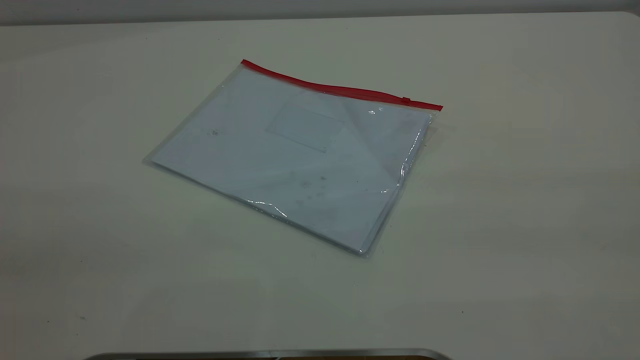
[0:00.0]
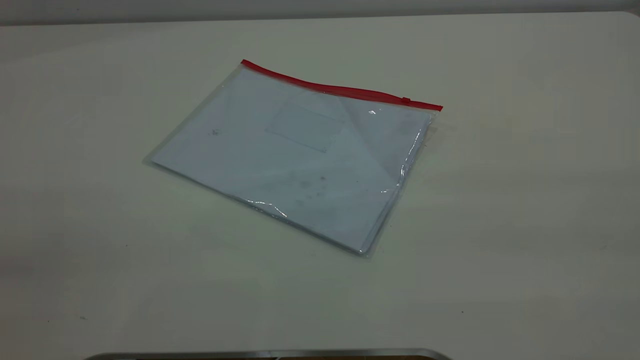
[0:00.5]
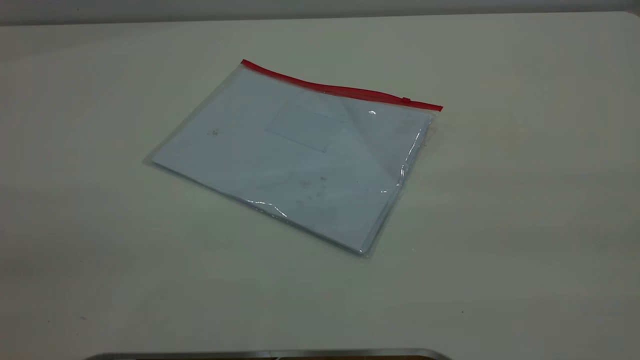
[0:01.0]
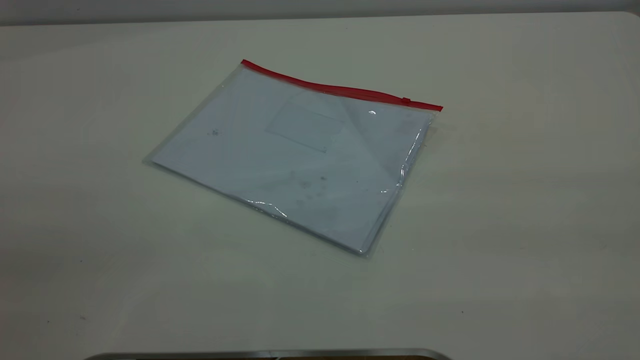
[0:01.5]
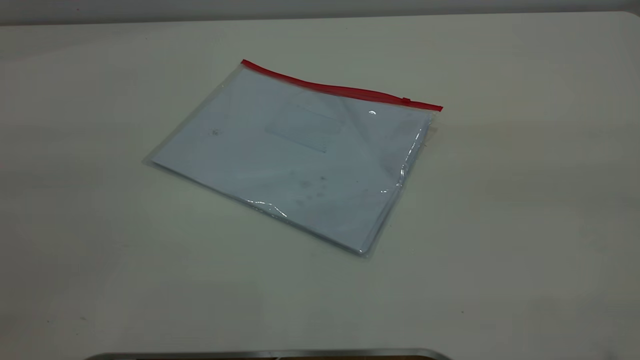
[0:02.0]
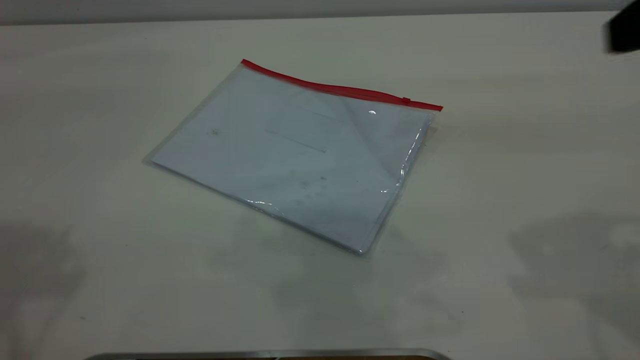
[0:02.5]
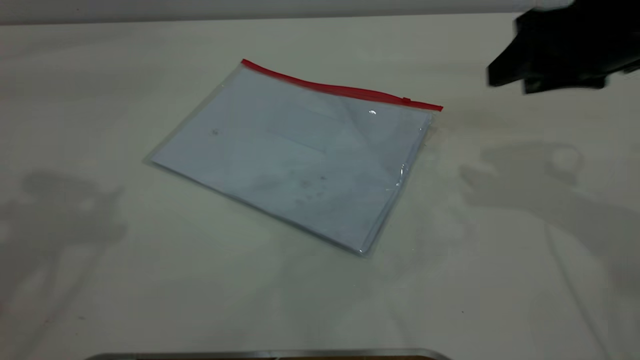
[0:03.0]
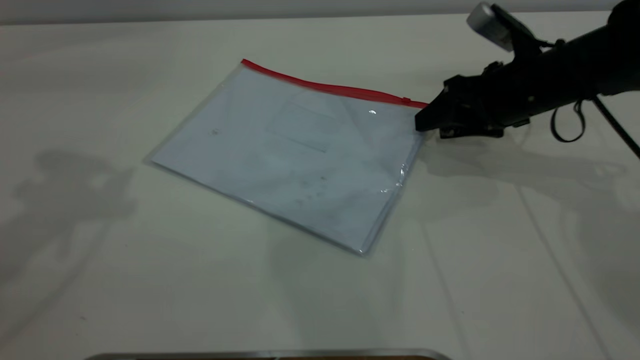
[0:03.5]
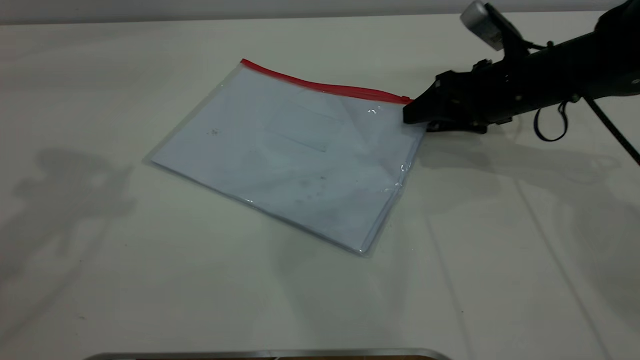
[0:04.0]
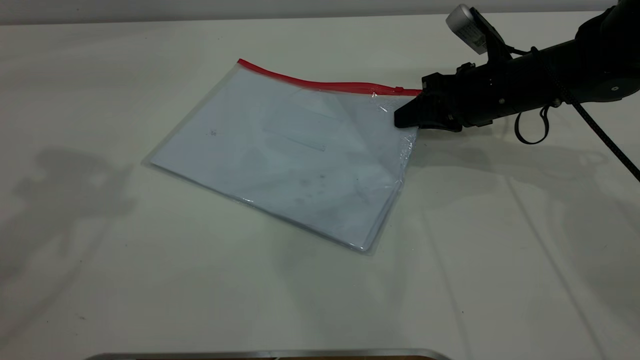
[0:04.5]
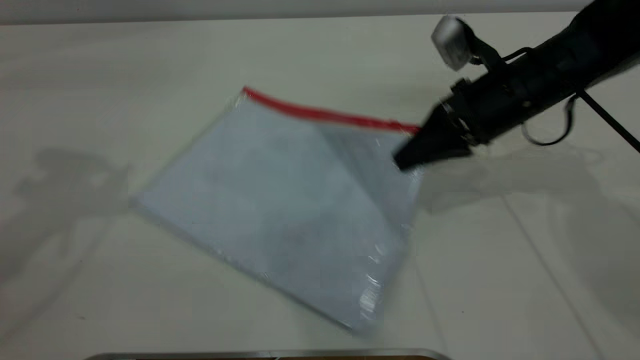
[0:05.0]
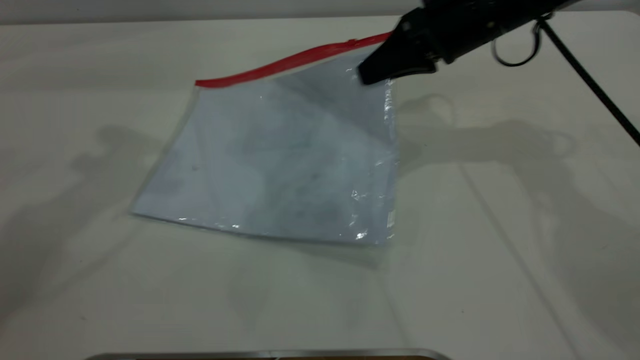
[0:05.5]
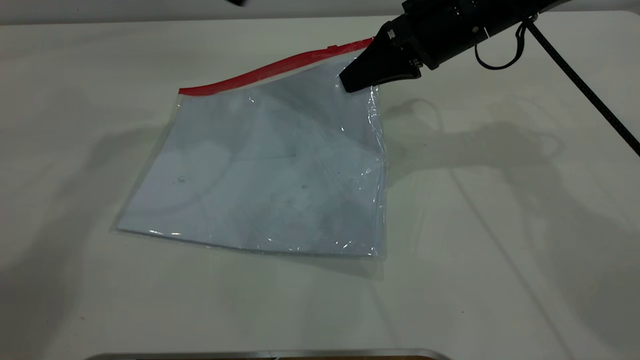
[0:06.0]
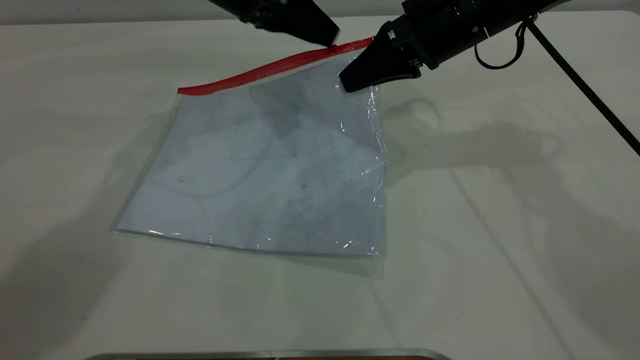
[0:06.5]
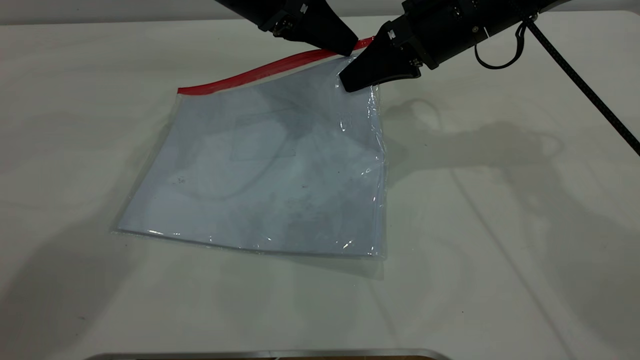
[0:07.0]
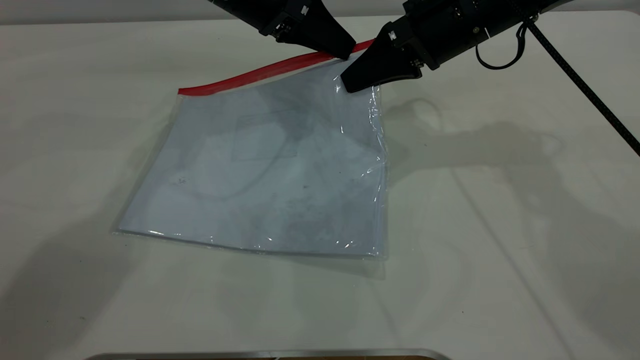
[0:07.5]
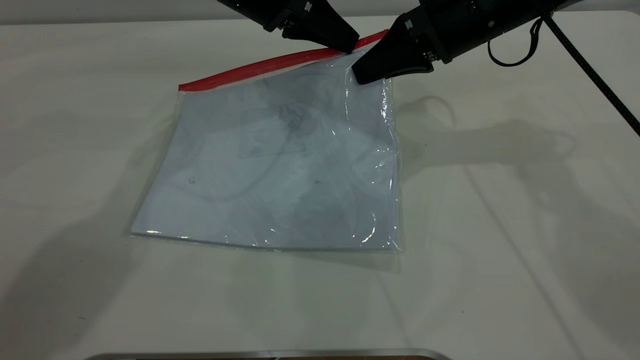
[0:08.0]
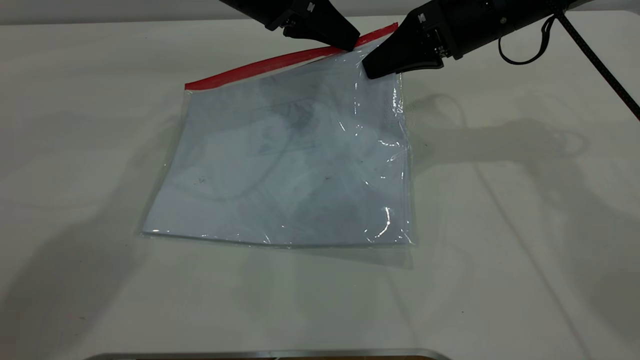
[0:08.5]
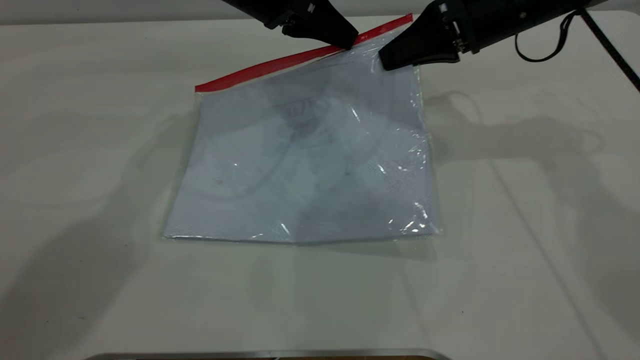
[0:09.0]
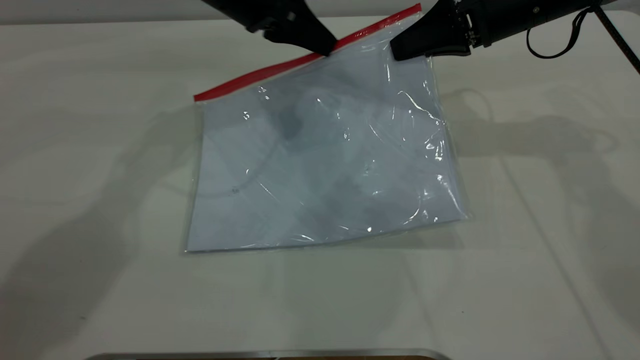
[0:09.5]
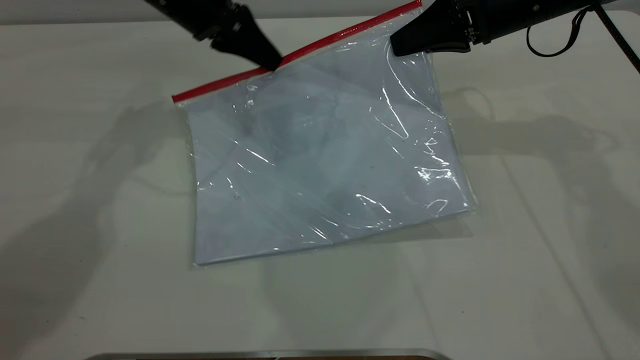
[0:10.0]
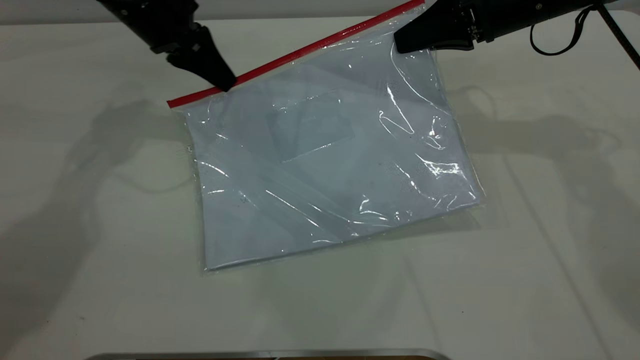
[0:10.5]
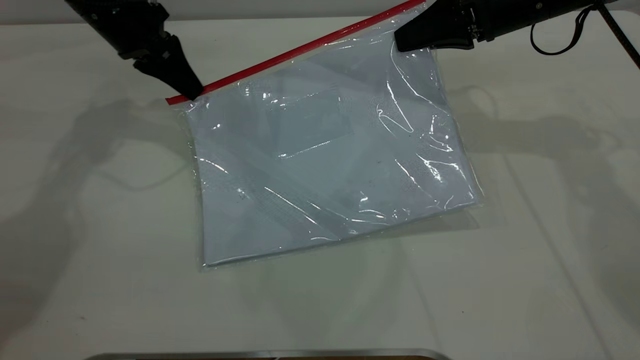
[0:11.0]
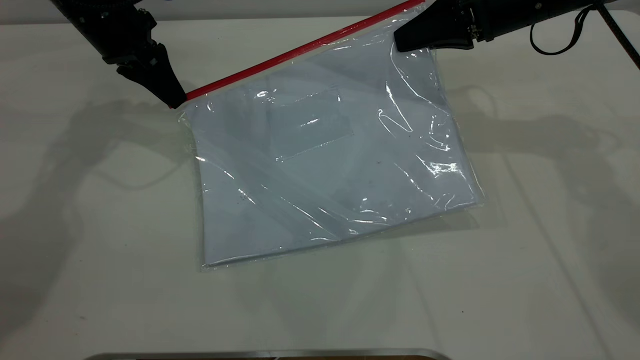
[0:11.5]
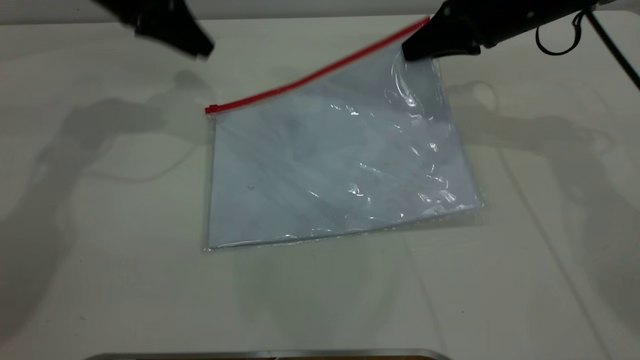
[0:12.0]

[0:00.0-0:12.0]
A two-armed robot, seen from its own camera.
Step, 0:00.0 to 0:05.5: Pick up the transparent plastic bag with the right gripper.
Step, 0:06.0 to 0:11.5: Pulling up the zipper on the transparent plastic bag with the left gripper to close it.
0:02.0 to 0:04.0: The right gripper shifts about 50 cm forward and downward.
0:04.0 to 0:06.0: The left gripper is displaced forward, to the right and downward by roughly 20 cm. The right gripper shifts about 10 cm upward and to the left, and closes.
0:06.0 to 0:08.0: The left gripper shifts roughly 10 cm to the right and downward, and closes its fingers.
0:08.0 to 0:10.0: The left gripper travels to the left by roughly 5 cm.
0:10.0 to 0:12.0: The left gripper heads to the left, covering about 5 cm, and opens its fingers.

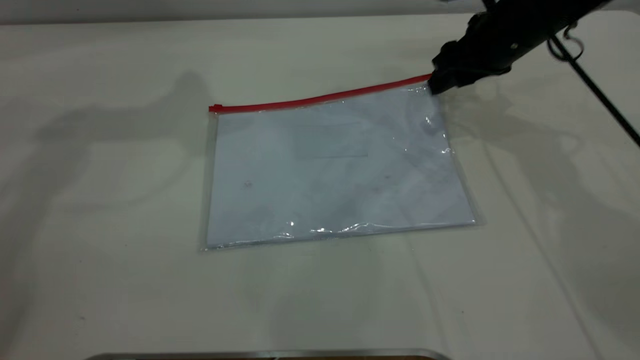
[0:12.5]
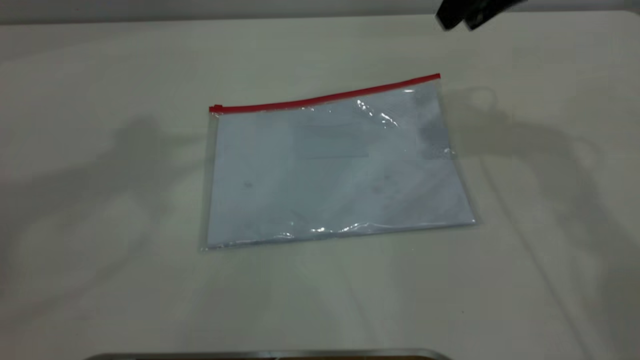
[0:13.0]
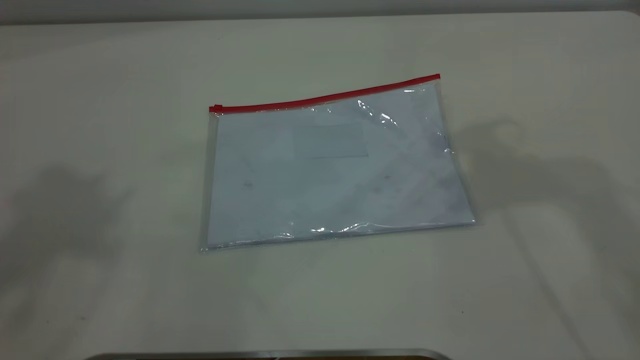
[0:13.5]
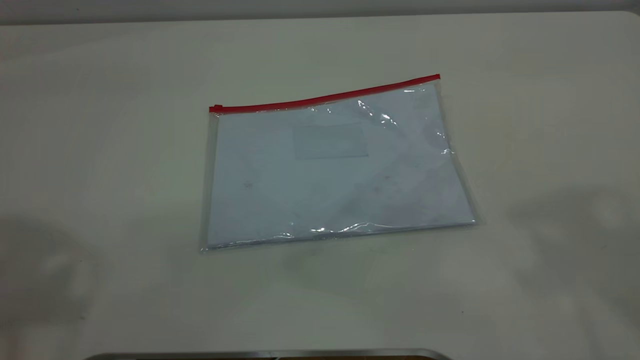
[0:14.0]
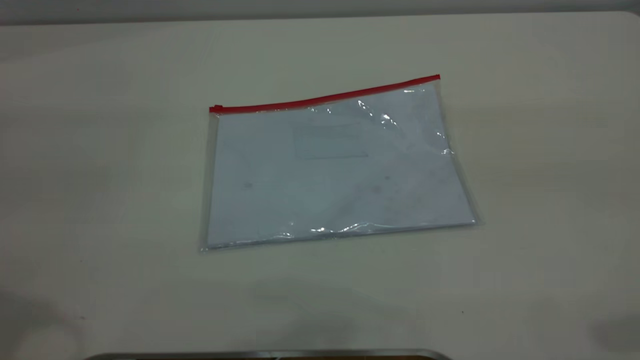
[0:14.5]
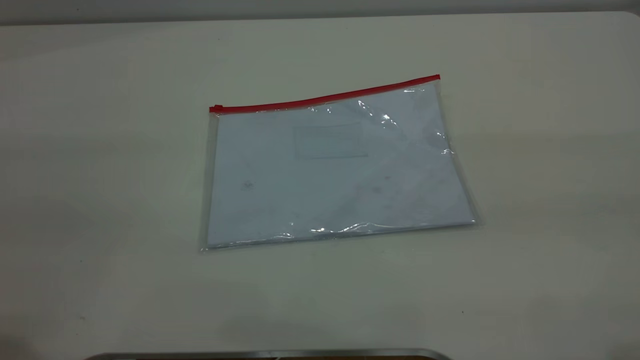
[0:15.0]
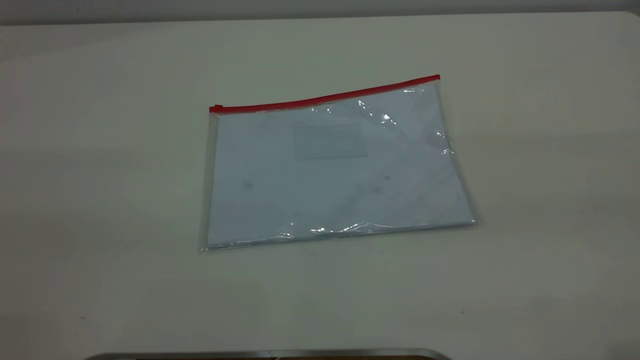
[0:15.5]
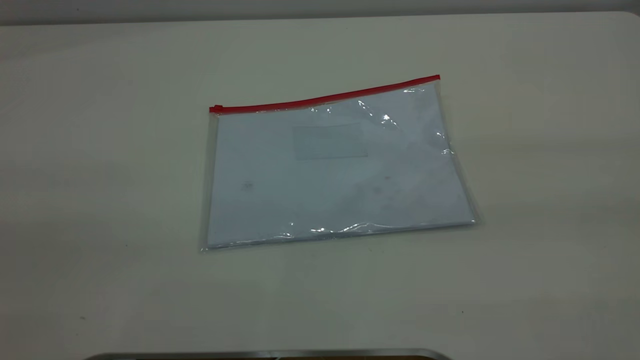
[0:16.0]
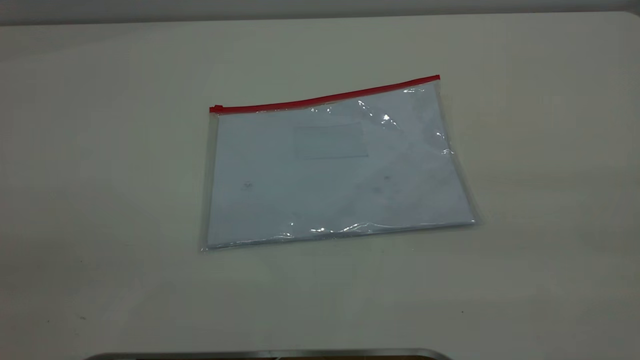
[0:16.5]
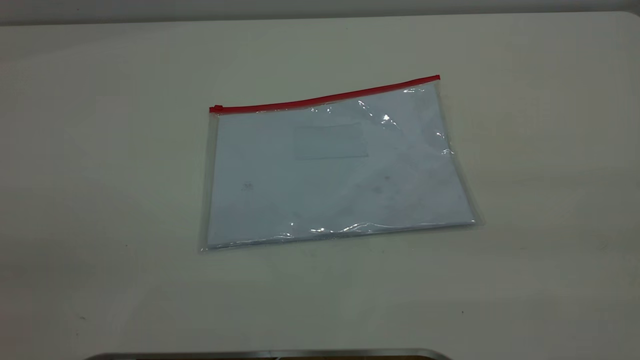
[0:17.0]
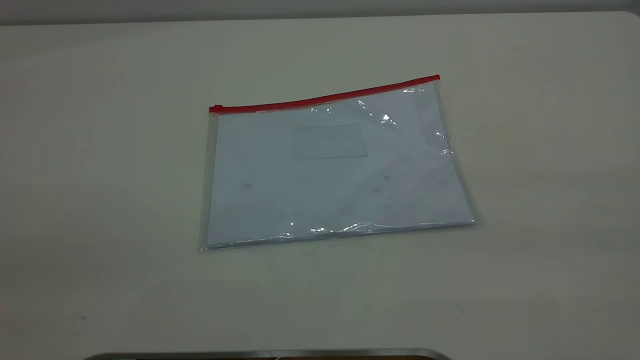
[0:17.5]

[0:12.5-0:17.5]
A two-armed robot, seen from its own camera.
Step, 0:12.5 to 0:13.0: Place the transparent plastic bag.
0:12.5 to 0:15.0: The right gripper shifts some 40 cm backward and upward.

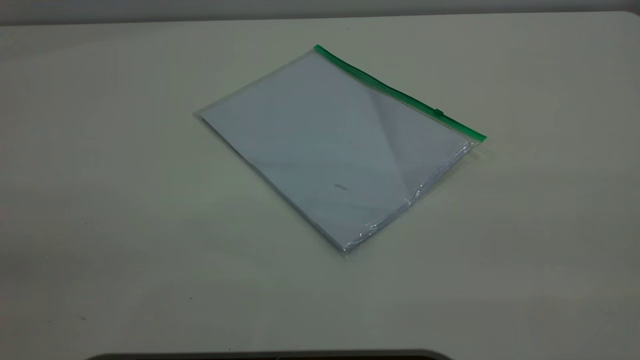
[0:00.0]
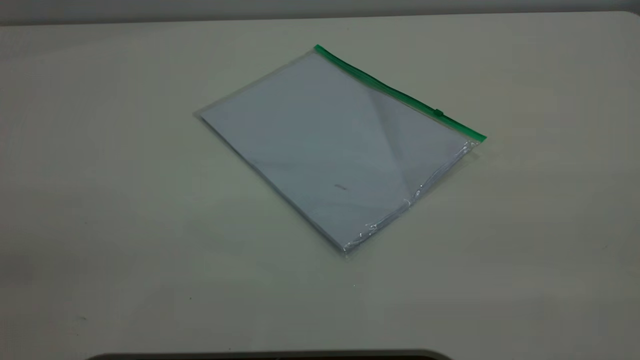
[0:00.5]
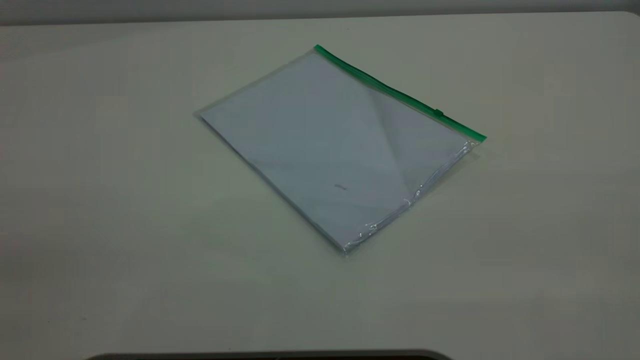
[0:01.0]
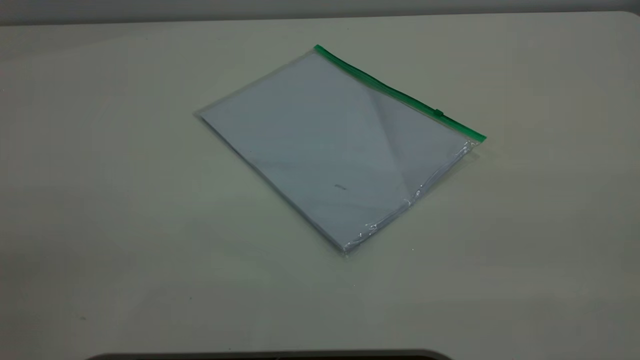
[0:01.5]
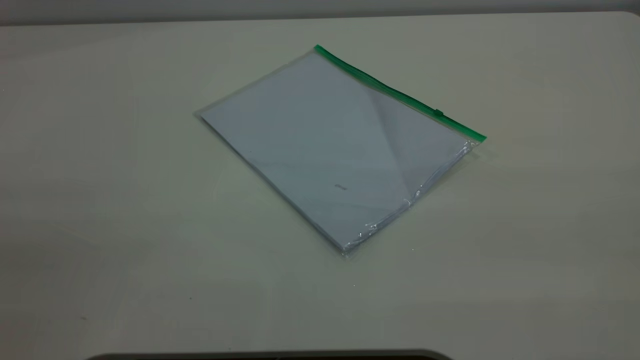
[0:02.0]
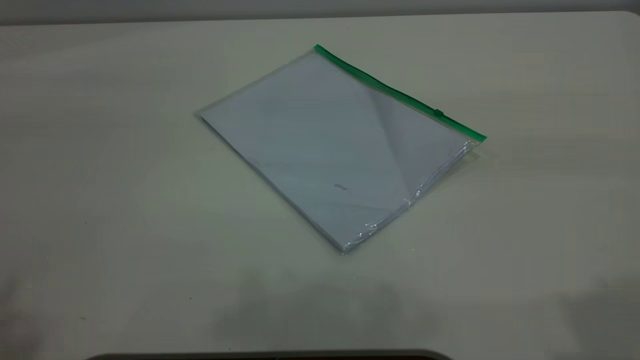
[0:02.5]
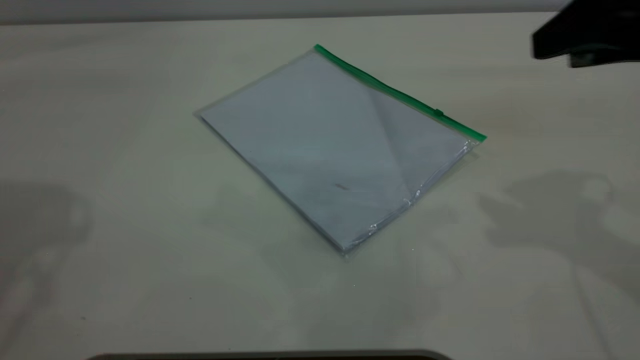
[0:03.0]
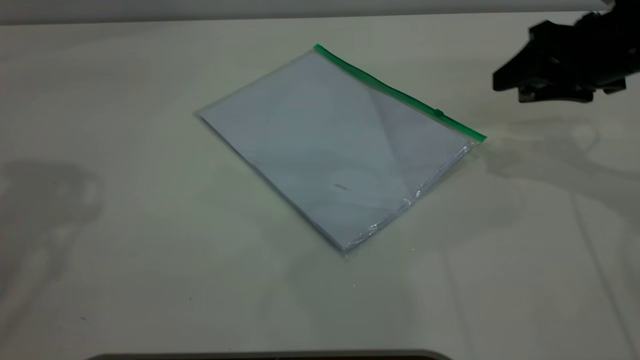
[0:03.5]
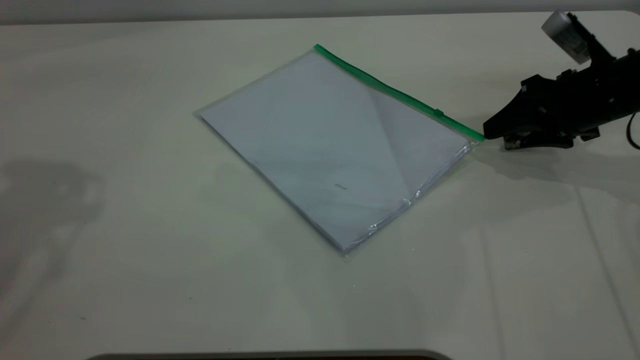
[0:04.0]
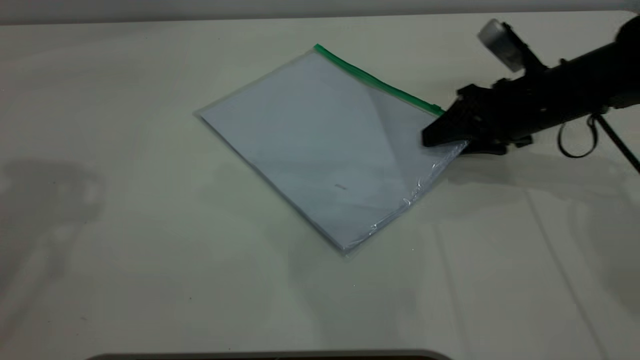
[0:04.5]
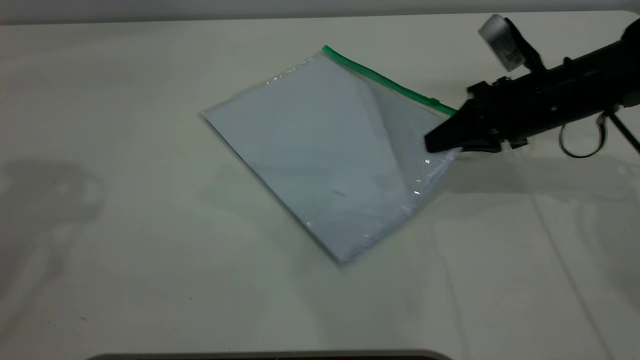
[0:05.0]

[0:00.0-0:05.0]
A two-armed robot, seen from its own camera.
0:02.5 to 0:05.0: The right gripper heads downward and forward, covering some 35 cm, and closes. The left gripper is displaced forward by some 15 cm.
